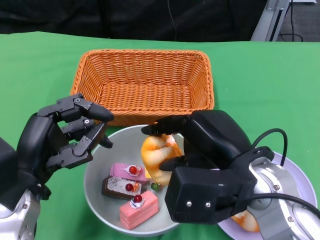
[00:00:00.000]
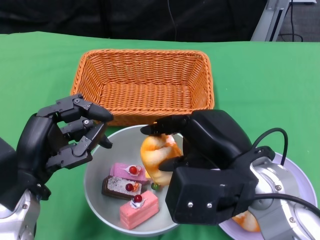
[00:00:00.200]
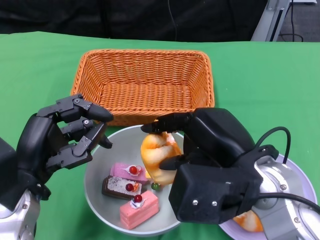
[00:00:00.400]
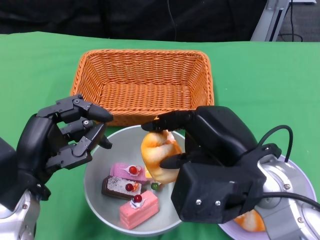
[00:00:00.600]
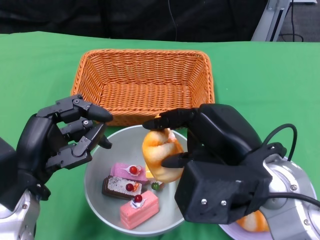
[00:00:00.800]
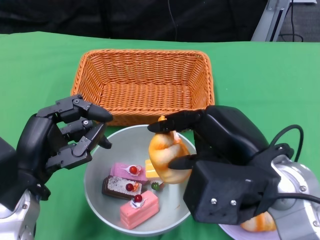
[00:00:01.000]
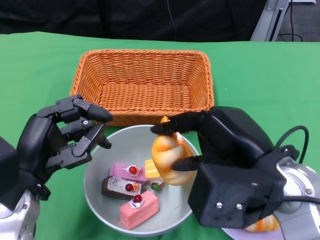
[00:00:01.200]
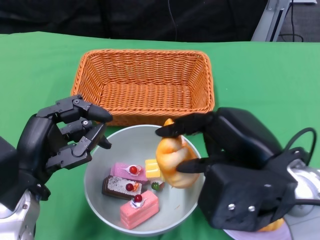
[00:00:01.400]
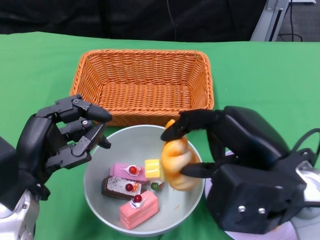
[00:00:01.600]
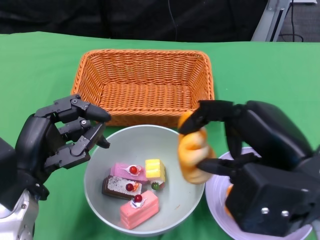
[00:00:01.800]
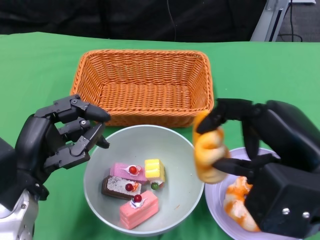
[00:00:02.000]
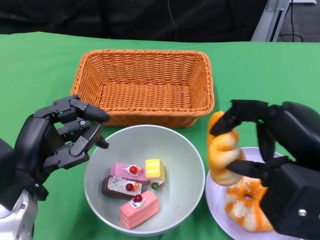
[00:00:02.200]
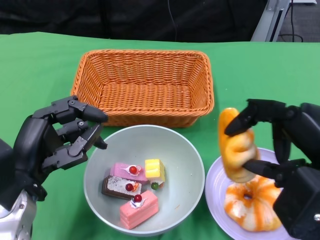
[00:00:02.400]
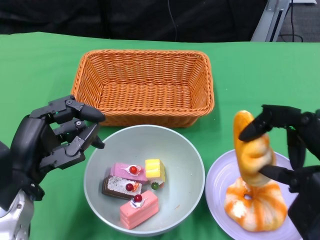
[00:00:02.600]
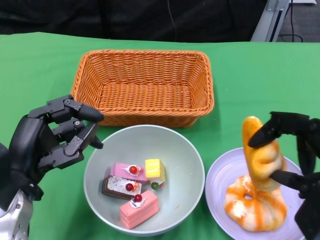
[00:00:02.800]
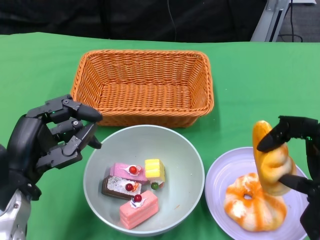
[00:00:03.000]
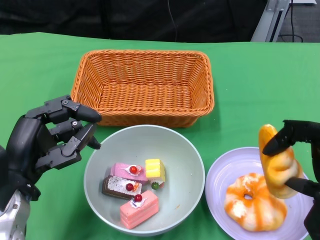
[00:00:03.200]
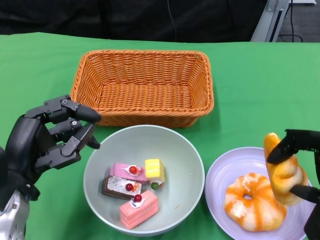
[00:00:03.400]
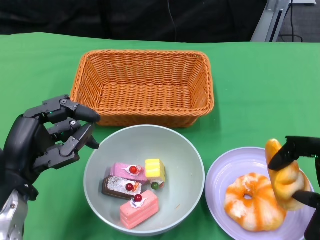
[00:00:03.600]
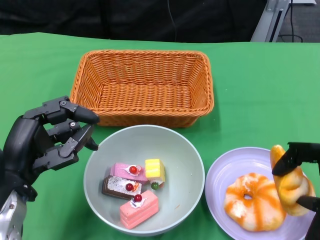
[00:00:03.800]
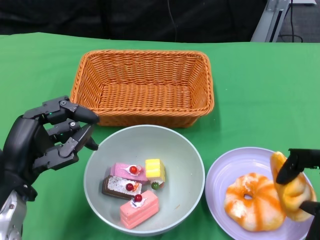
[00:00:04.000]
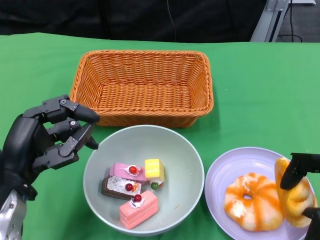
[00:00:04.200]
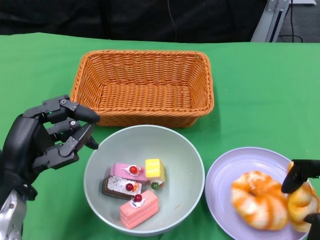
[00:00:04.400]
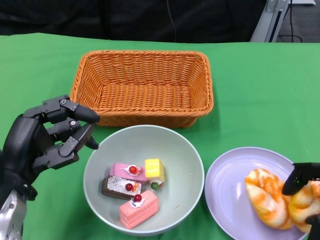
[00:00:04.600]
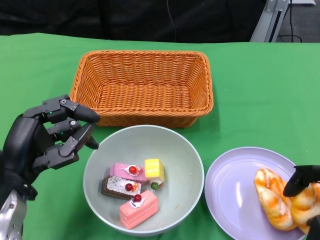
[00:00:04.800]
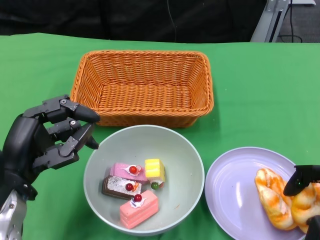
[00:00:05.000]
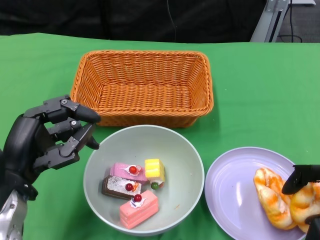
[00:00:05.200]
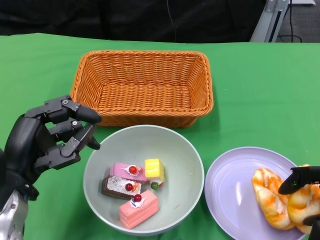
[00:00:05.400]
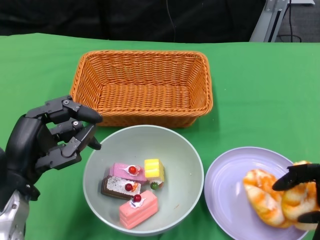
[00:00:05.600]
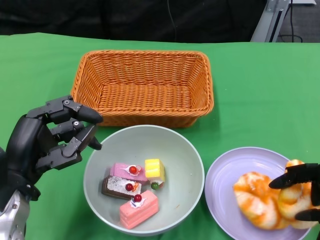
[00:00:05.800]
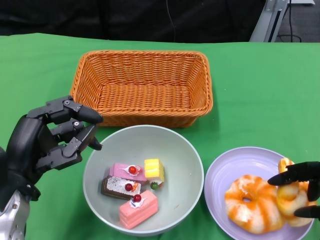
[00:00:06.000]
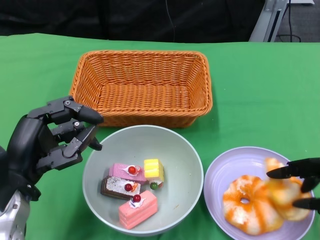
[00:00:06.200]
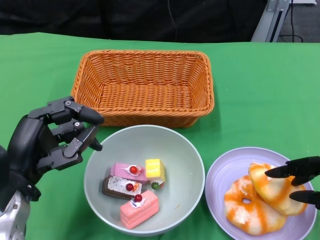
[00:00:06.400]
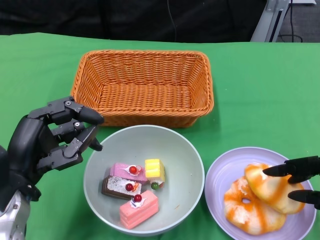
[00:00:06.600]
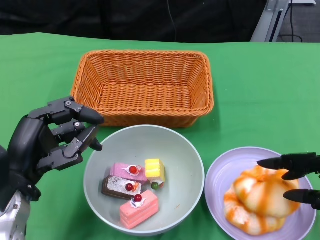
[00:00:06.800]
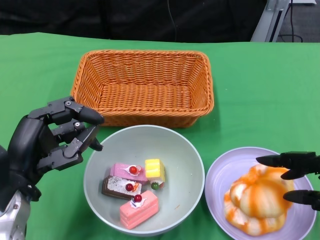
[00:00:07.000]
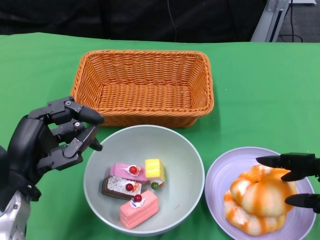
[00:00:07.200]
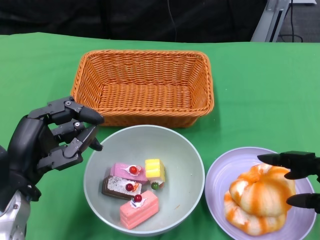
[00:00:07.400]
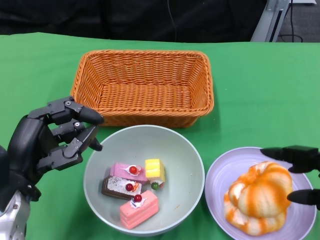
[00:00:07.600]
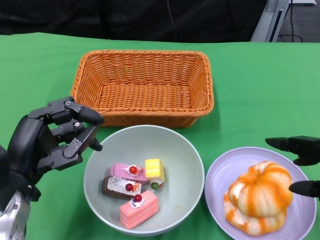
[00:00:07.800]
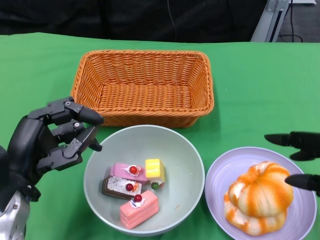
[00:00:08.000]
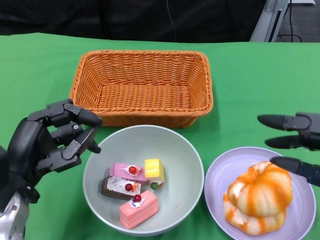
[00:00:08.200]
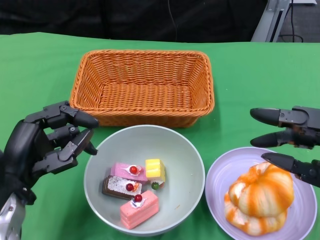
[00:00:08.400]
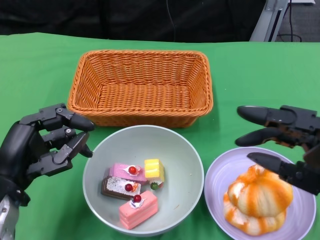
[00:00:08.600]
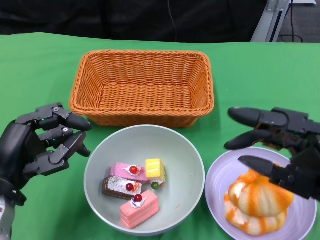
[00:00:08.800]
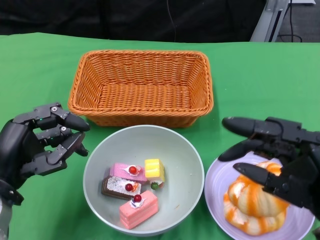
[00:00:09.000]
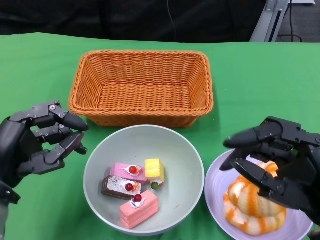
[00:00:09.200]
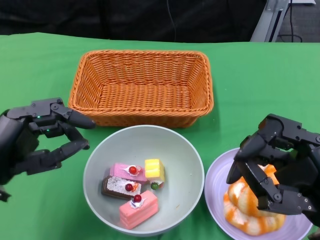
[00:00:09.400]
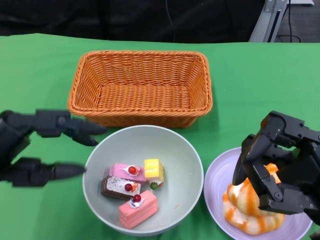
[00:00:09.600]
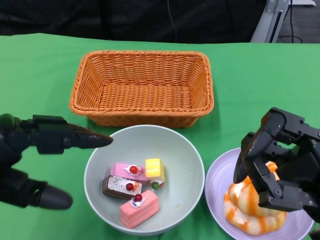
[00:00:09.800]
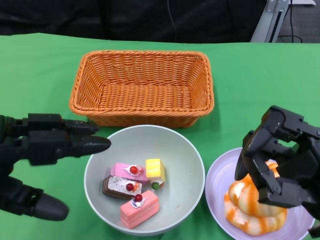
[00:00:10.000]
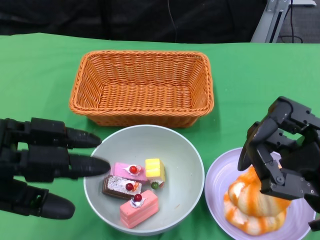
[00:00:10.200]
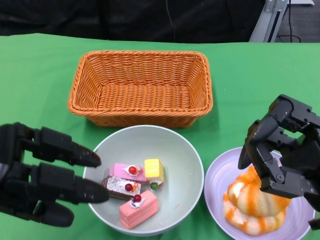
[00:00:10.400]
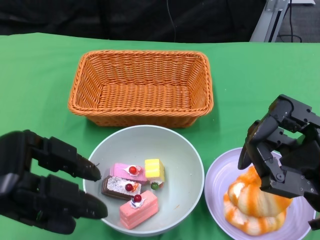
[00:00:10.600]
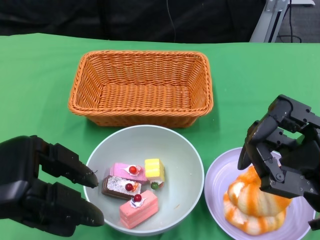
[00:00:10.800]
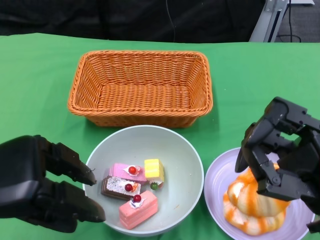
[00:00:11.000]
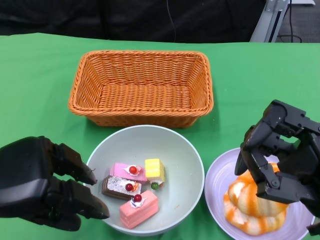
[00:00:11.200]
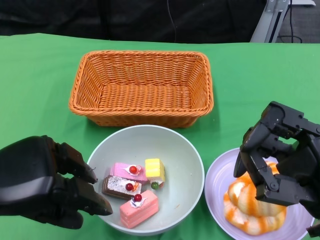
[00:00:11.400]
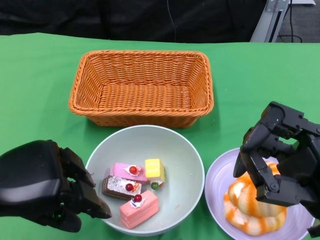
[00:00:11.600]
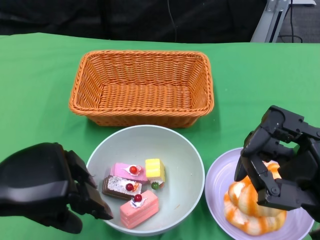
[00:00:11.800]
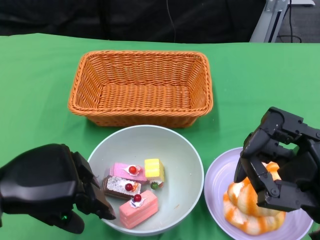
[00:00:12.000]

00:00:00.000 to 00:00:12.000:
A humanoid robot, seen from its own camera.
Step, 00:00:00.000 to 00:00:08.000: Pick up the bread with the right gripper and place it on the plate.
00:00:00.000 to 00:00:01.600: The right hand changes place by approximately 5 cm.
00:00:01.600 to 00:00:03.000: The right hand goes some 10 cm to the right.
00:00:03.000 to 00:00:04.400: The right hand travels downward by approximately 5 cm.
00:00:04.400 to 00:00:06.000: The hands make only small movements.
00:00:06.000 to 00:00:07.600: The hands make only small movements.
00:00:07.600 to 00:00:09.000: The right hand shifts roughly 5 cm to the left.
00:00:09.000 to 00:00:10.400: The left hand moves upward, about 5 cm.

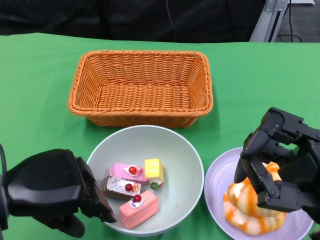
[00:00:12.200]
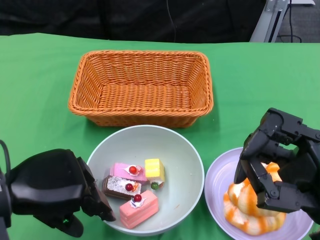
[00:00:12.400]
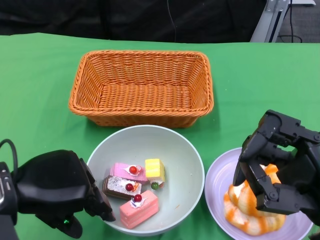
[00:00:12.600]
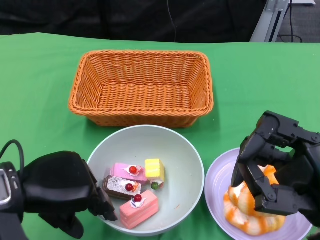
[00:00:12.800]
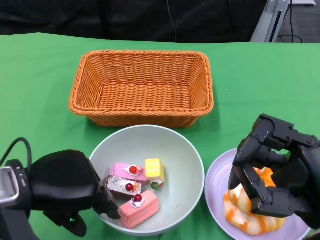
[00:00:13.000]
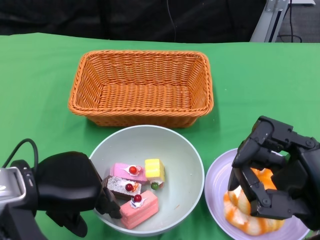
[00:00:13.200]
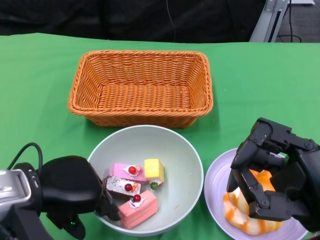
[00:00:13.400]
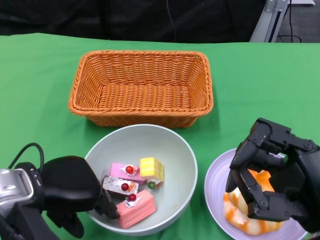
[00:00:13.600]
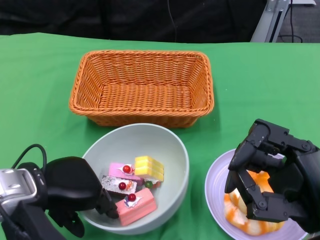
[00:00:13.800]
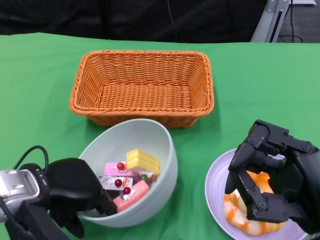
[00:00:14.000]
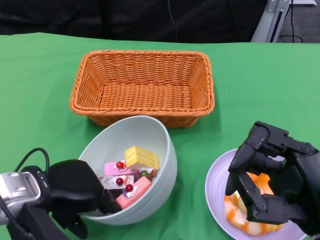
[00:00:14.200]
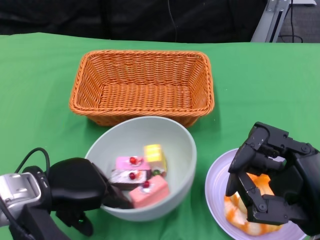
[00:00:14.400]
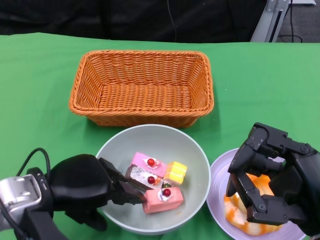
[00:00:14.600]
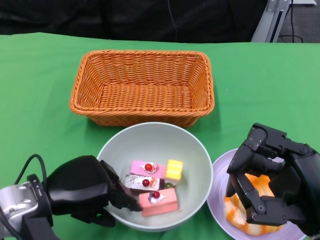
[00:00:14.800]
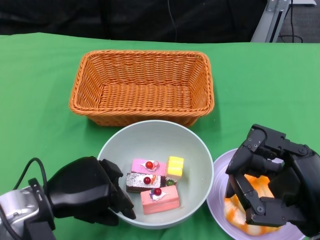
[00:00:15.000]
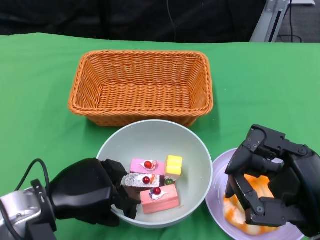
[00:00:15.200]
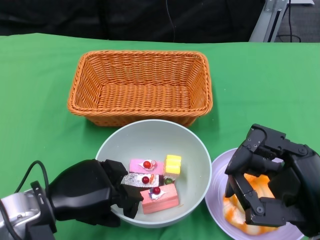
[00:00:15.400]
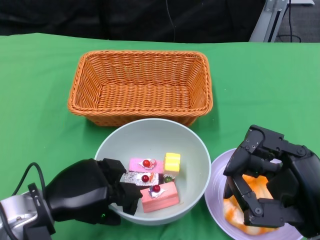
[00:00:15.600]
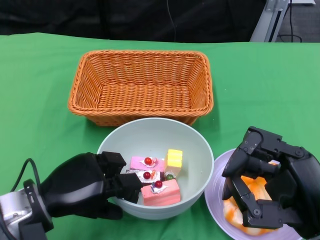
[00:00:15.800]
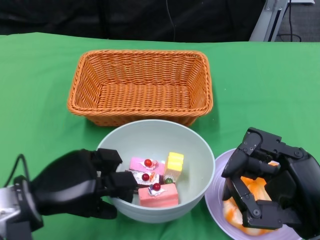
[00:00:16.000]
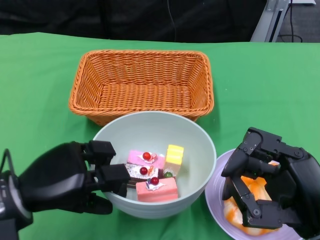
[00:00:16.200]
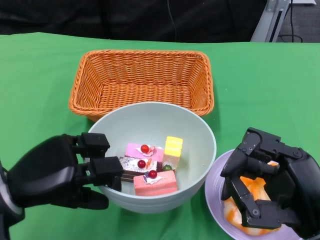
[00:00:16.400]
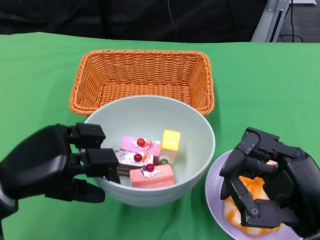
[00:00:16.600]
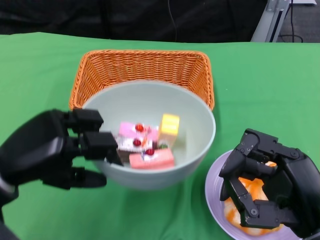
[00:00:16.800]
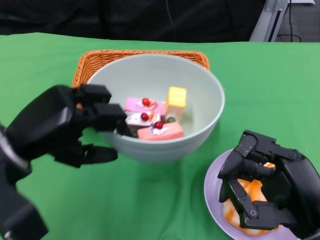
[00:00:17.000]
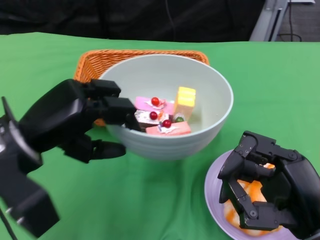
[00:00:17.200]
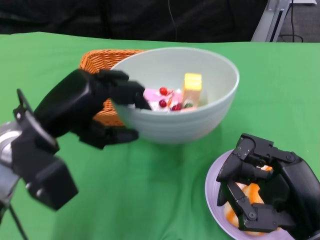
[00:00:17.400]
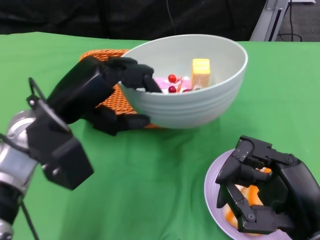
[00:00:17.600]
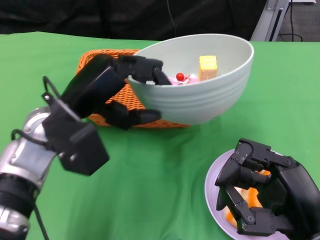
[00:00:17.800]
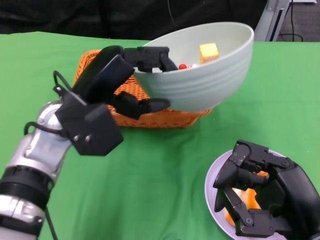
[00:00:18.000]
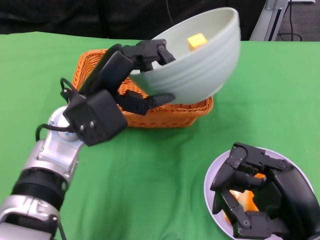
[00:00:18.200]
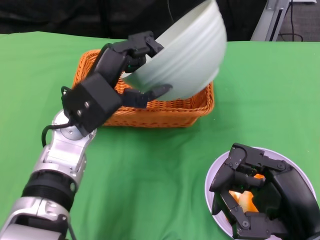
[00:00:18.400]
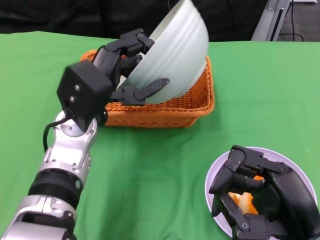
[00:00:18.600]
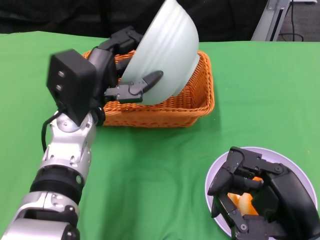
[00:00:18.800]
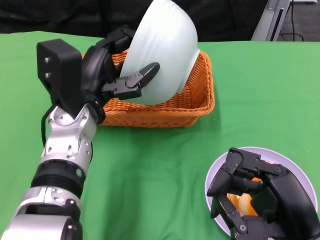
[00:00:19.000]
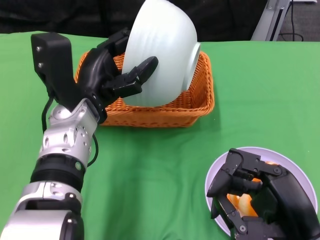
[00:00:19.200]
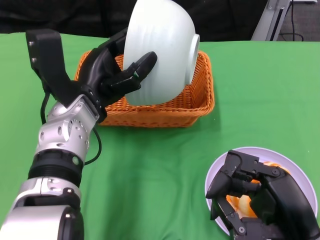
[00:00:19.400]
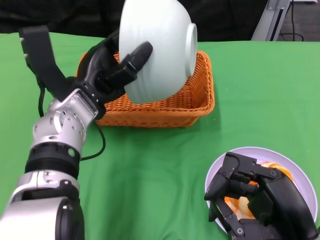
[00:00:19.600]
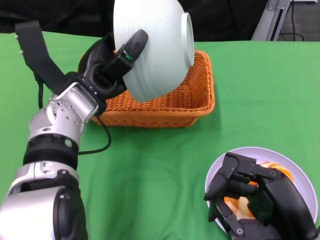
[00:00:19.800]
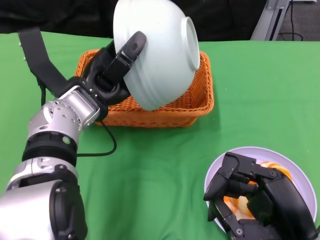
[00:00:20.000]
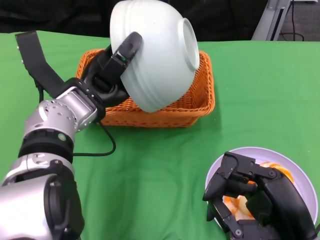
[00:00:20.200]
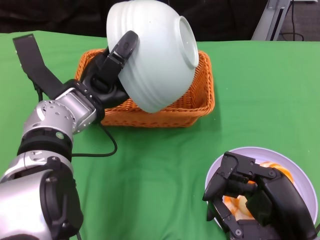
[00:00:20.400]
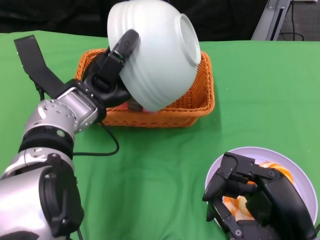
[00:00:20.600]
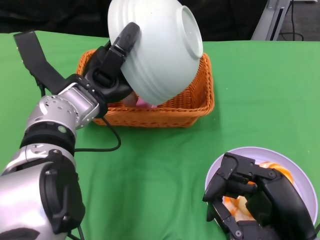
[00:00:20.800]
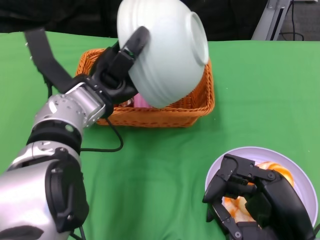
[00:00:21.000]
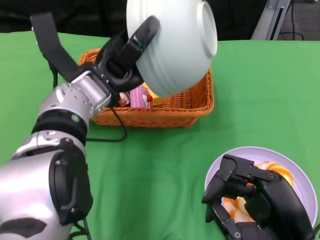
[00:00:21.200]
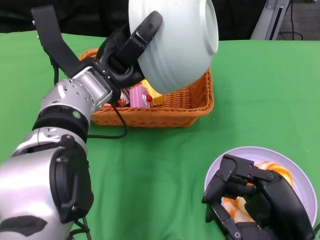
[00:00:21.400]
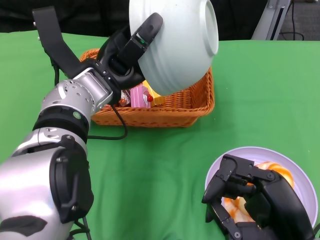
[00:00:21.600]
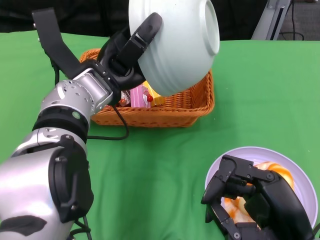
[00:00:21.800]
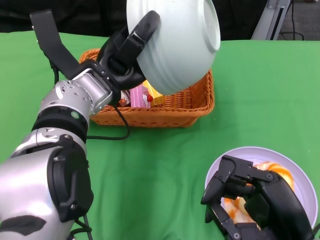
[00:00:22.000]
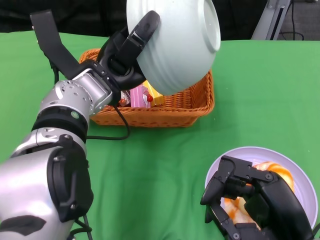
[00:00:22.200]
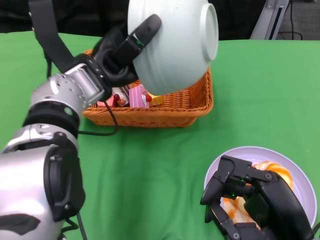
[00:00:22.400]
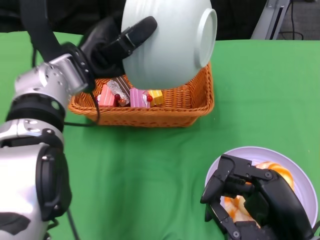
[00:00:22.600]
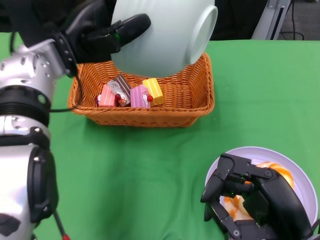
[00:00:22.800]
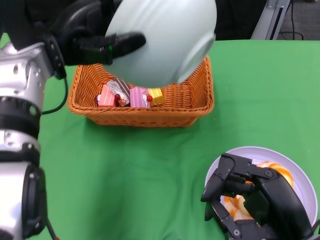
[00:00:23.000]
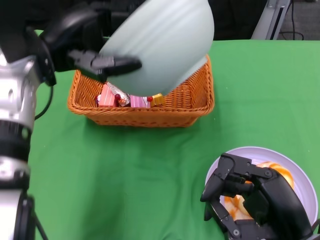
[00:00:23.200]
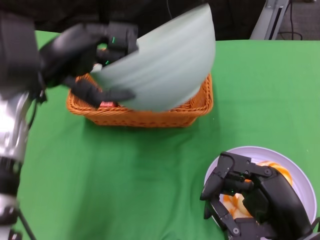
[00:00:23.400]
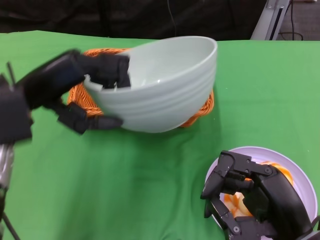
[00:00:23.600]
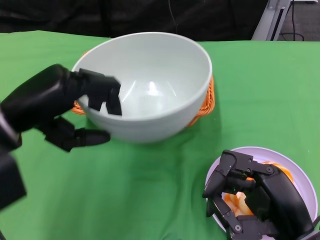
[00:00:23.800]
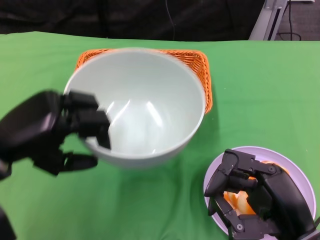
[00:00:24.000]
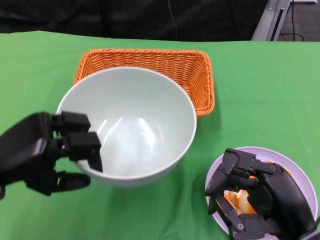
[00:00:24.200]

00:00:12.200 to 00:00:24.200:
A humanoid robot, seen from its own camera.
Step, 00:00:12.200 to 00:00:15.400: Grasp the bowl with the left gripper.
Step, 00:00:15.600 to 00:00:21.400: Pour the cake into the basket with the left gripper.
00:00:12.200 to 00:00:13.800: The left hand shifts by approximately 5 cm.
00:00:15.200 to 00:00:16.600: The left hand travels upward by some 5 cm.
00:00:16.600 to 00:00:18.200: The left hand goes some 15 cm to the right and forward.
00:00:22.600 to 00:00:24.200: The left hand goes some 20 cm backward, to the left and downward.
